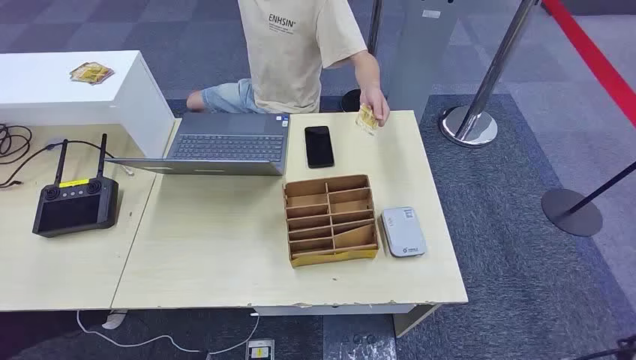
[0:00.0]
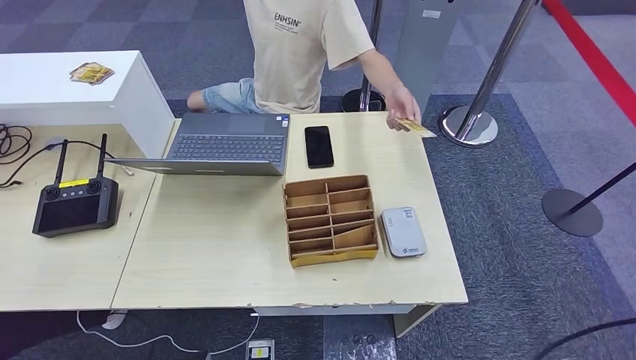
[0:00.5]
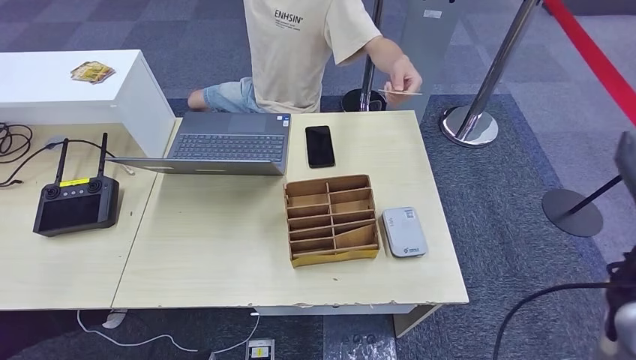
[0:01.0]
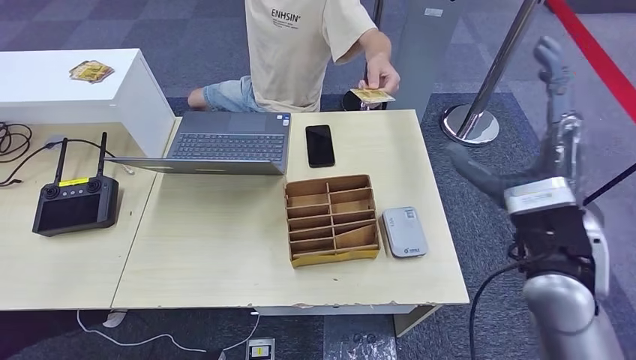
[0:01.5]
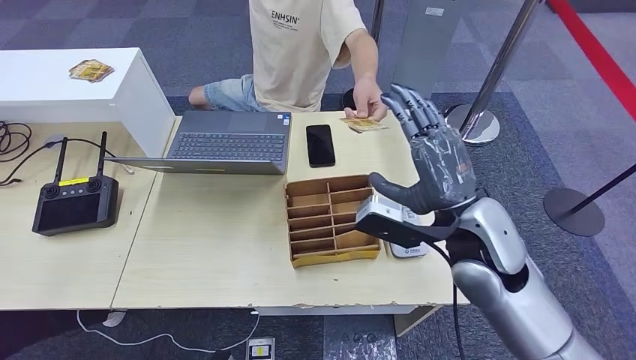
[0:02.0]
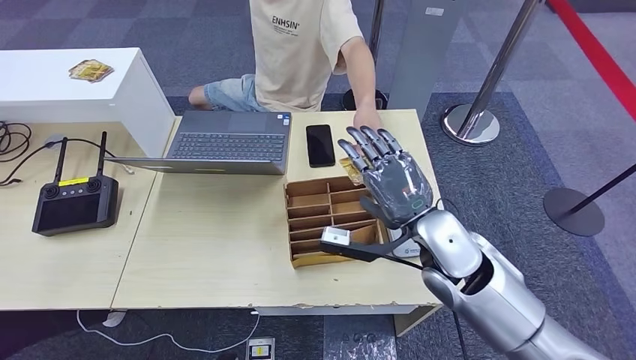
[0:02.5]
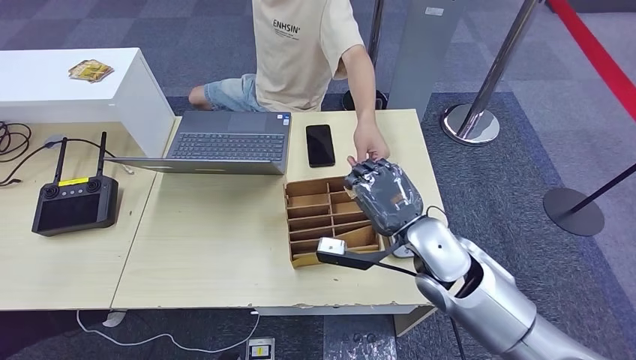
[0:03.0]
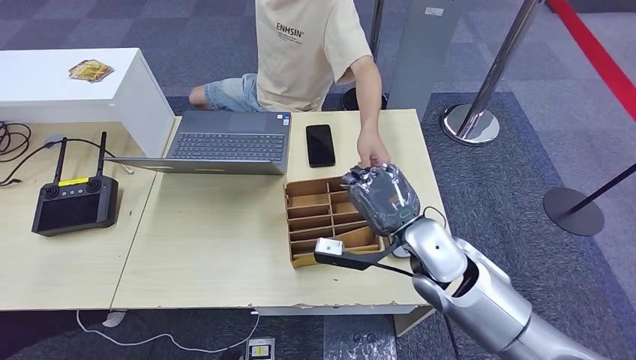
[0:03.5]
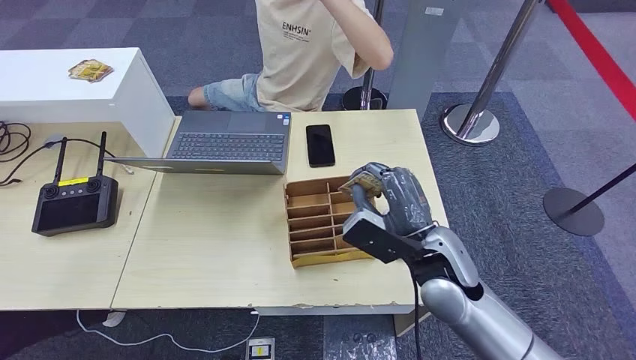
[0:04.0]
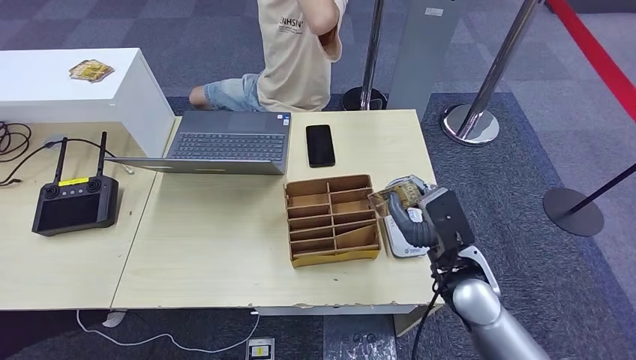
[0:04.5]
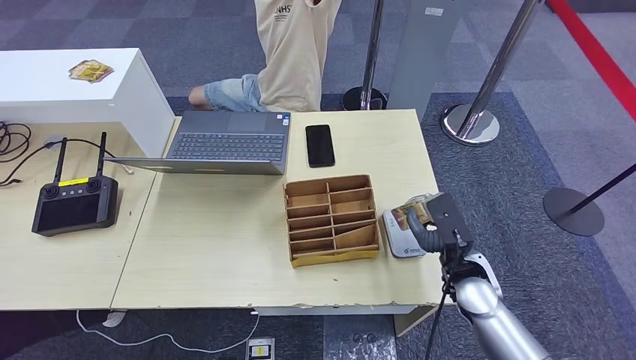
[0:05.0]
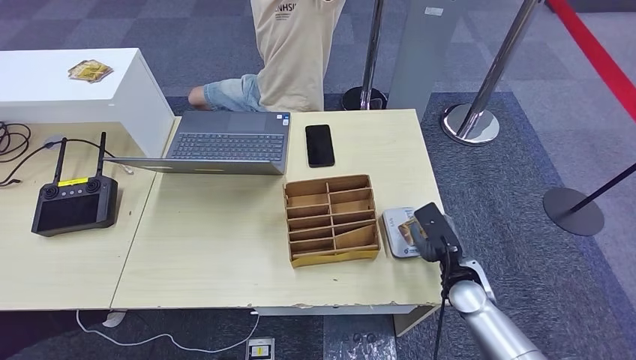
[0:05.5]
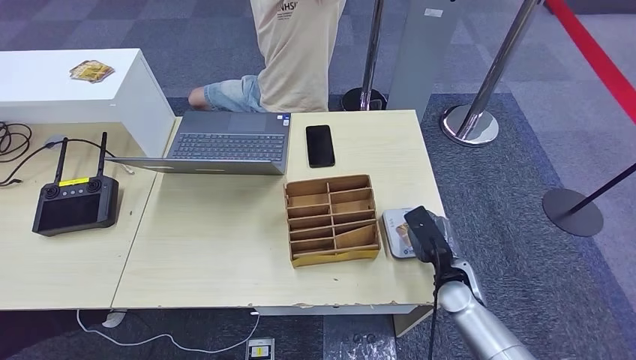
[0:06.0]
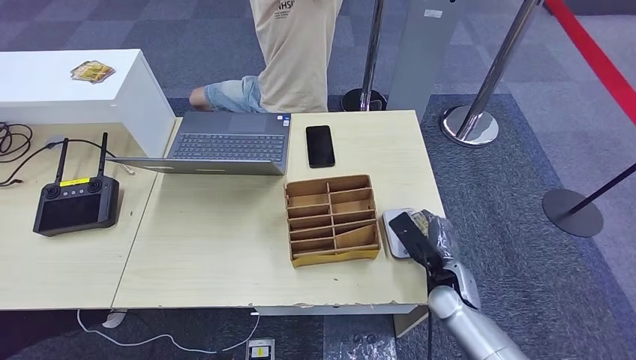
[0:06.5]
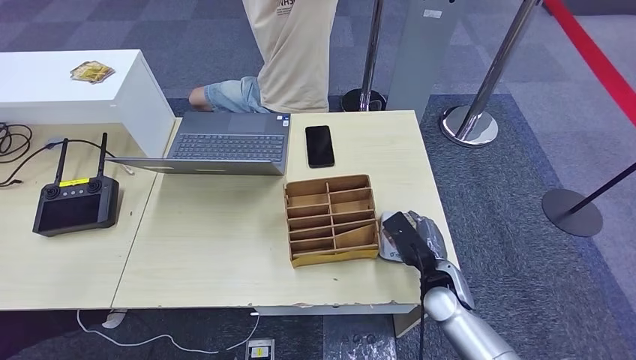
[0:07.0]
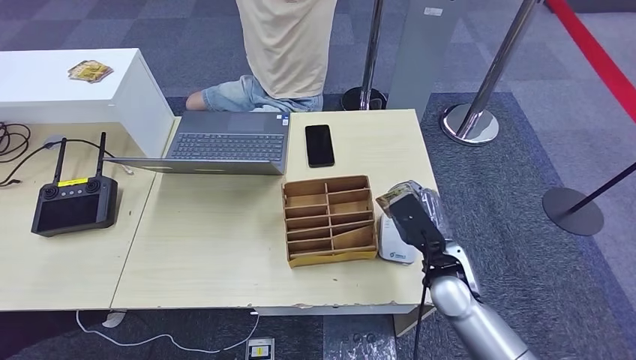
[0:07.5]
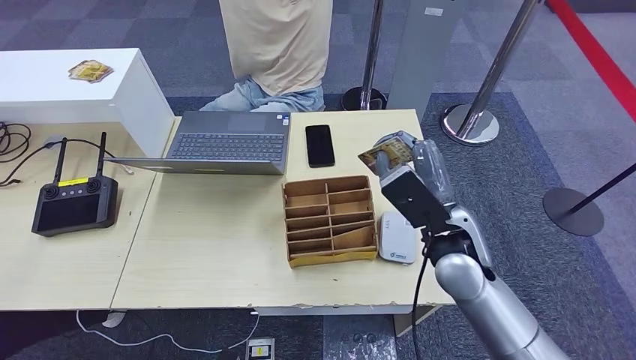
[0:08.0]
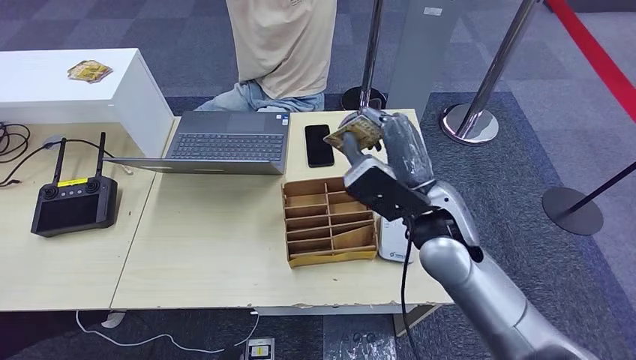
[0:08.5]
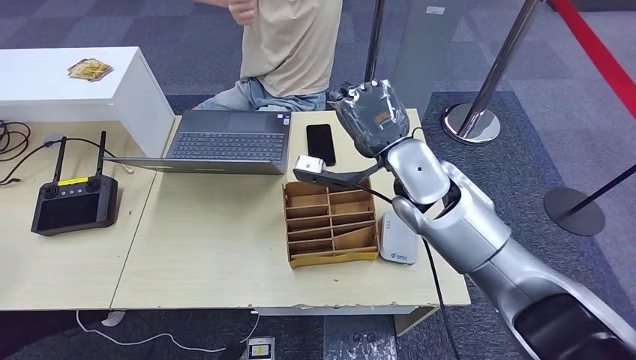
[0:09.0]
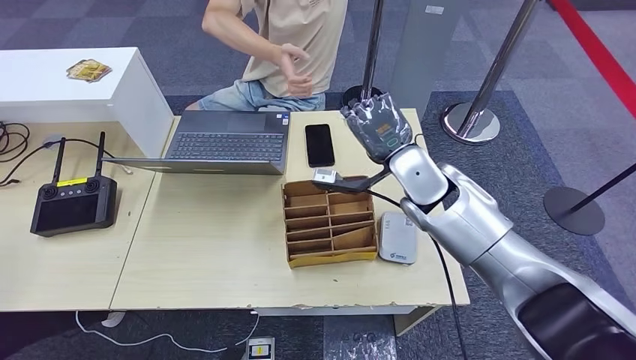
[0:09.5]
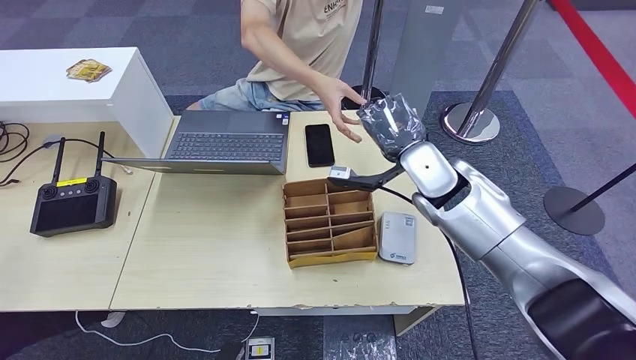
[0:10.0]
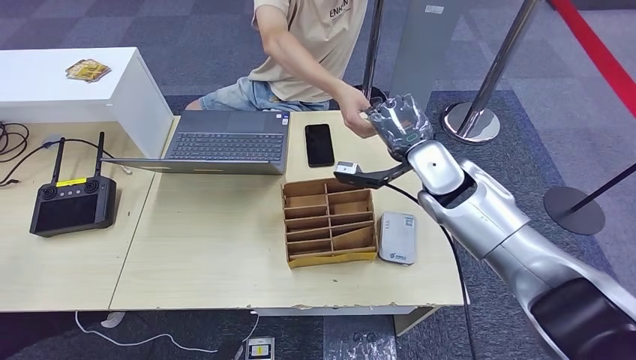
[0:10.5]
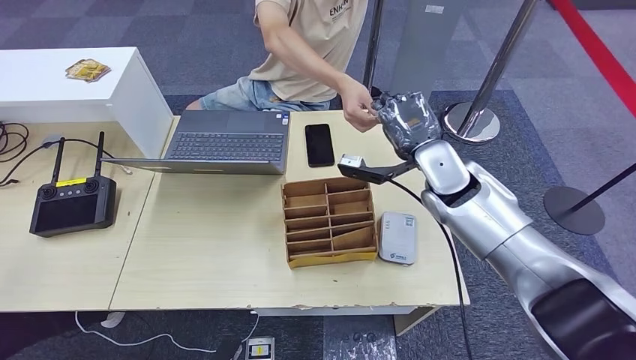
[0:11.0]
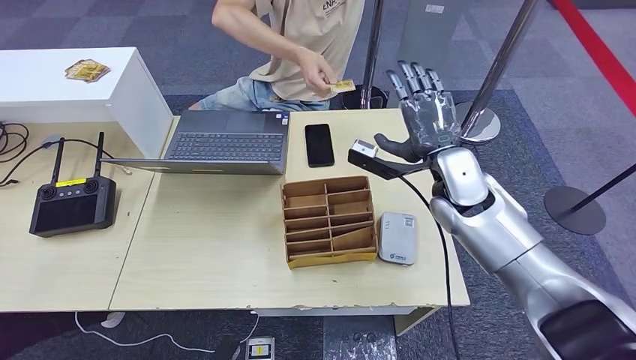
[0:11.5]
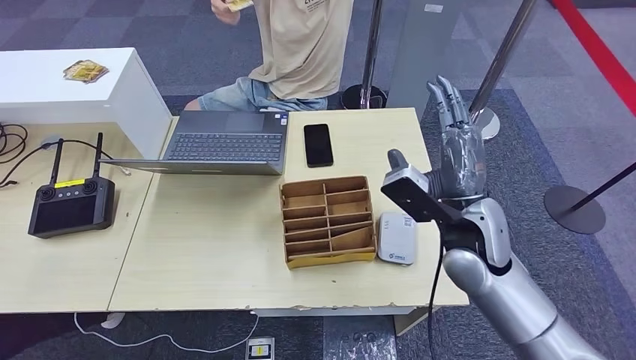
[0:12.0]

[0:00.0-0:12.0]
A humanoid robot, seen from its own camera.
Step, 0:00.0 to 0:04.0: Take the ID card from the person's hand.
Step, 0:04.5 to 0:05.5: Place the ID card on the card reader.
Step, 0:06.0 to 0:11.5: Hand the ID card to the person.
0:02.0 to 0:04.0: The right hand heads downward, covering about 10 cm.
0:04.0 to 0:06.0: The right hand shifts some 15 cm downward and to the right.
0:06.0 to 0:08.0: The right hand travels upward by roughly 20 cm.
0:10.0 to 0:12.0: The right hand is displaced backward by roughly 10 cm.

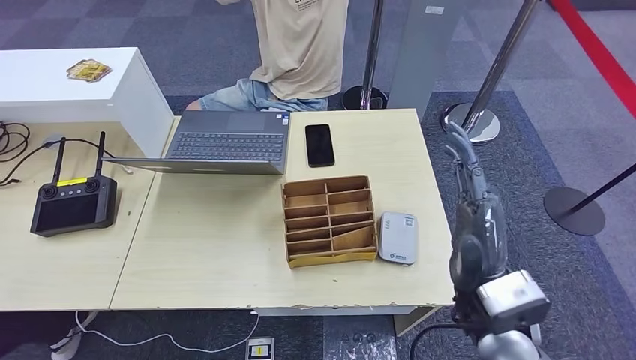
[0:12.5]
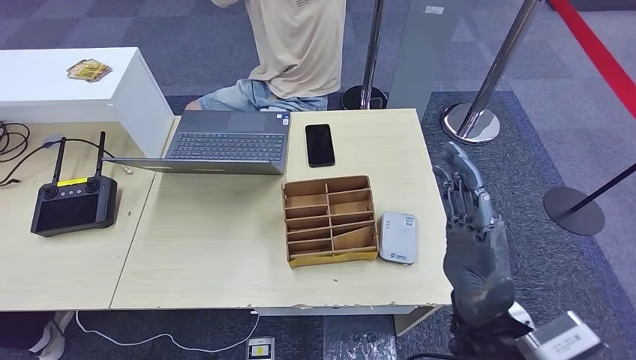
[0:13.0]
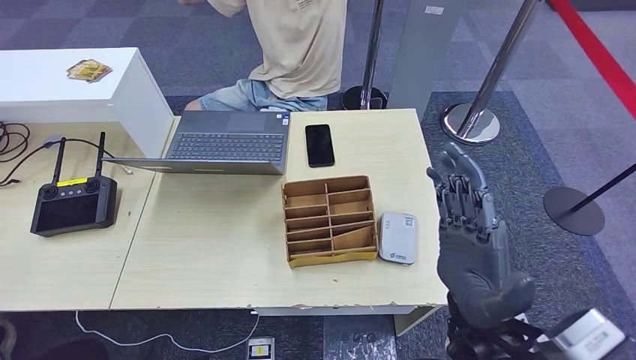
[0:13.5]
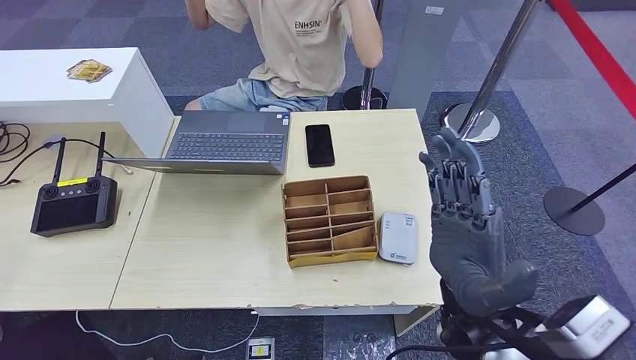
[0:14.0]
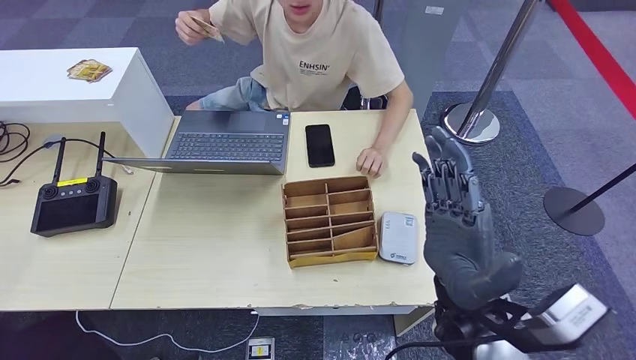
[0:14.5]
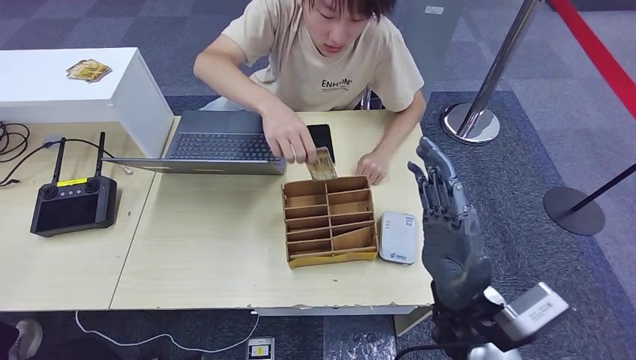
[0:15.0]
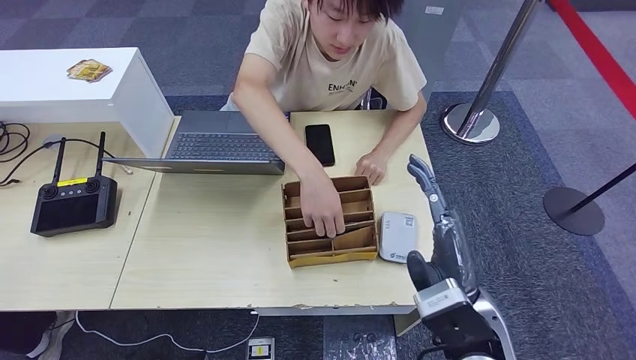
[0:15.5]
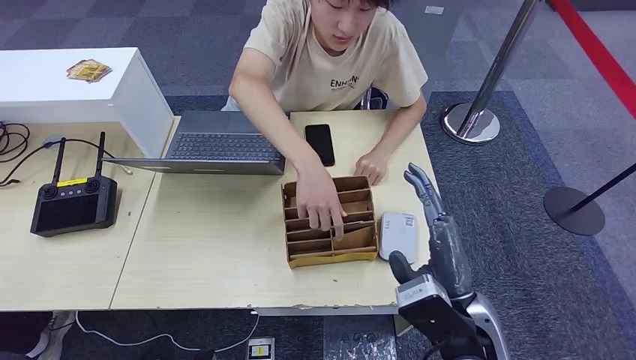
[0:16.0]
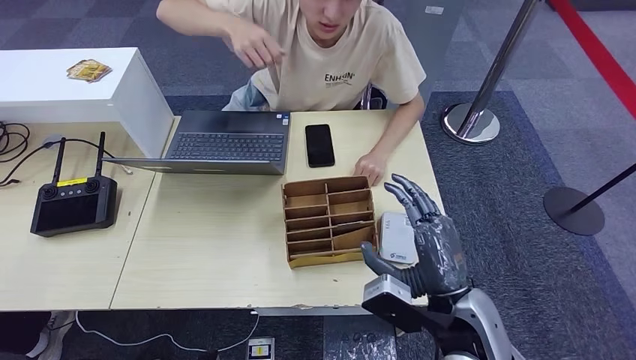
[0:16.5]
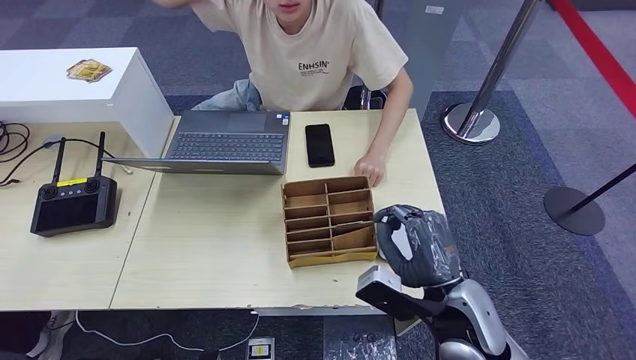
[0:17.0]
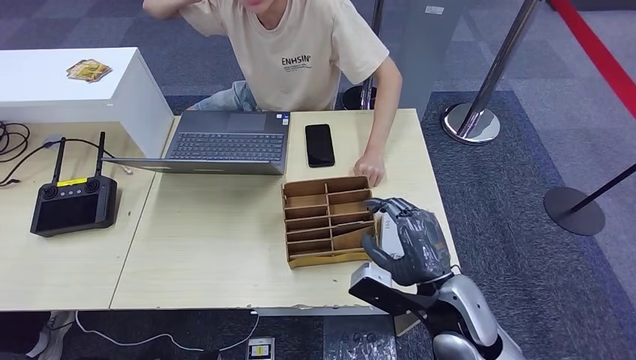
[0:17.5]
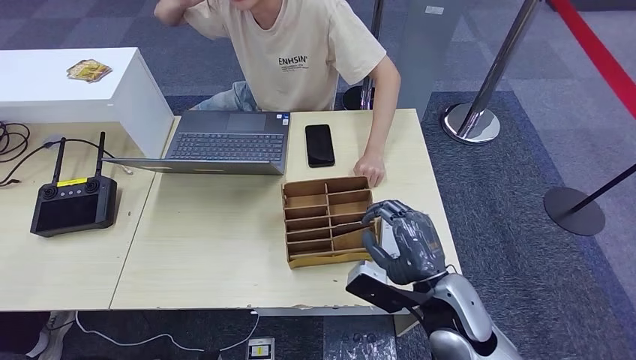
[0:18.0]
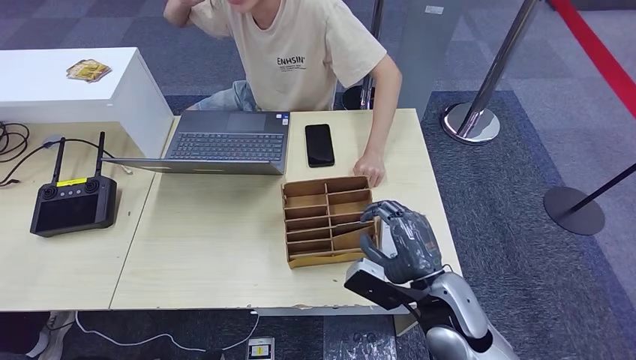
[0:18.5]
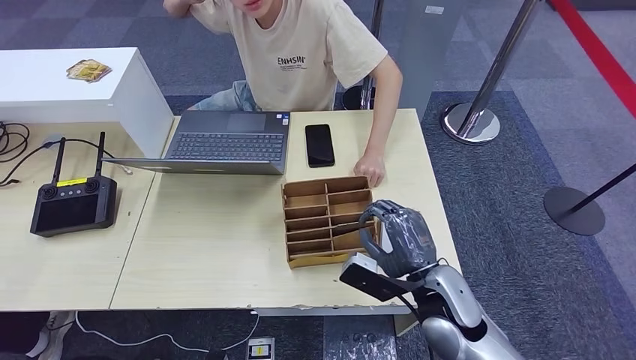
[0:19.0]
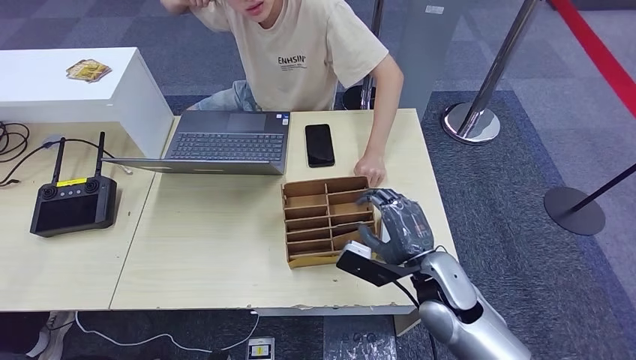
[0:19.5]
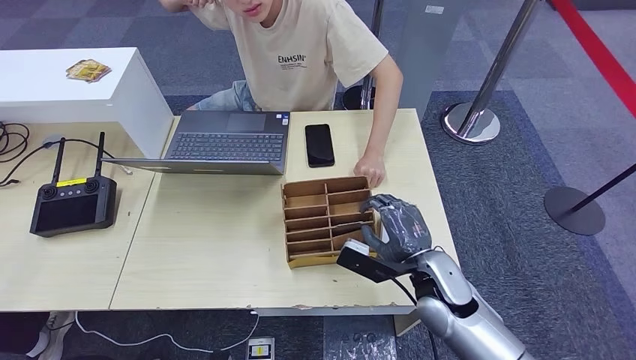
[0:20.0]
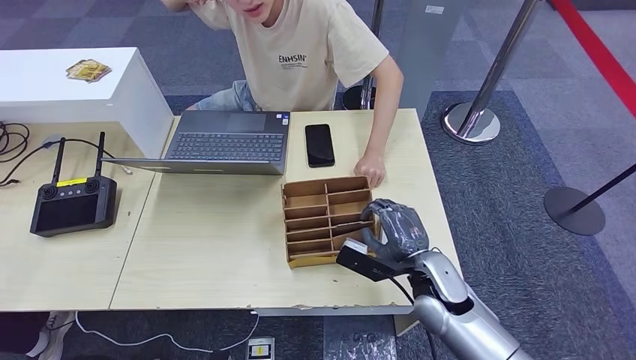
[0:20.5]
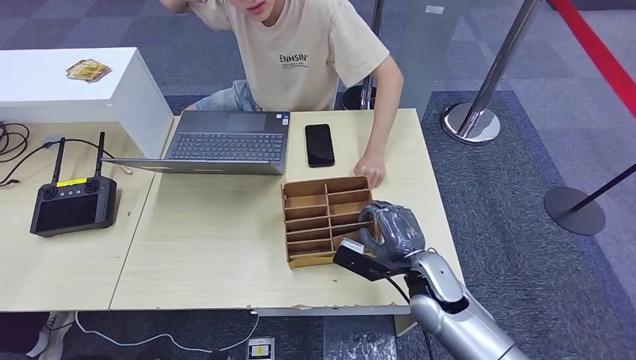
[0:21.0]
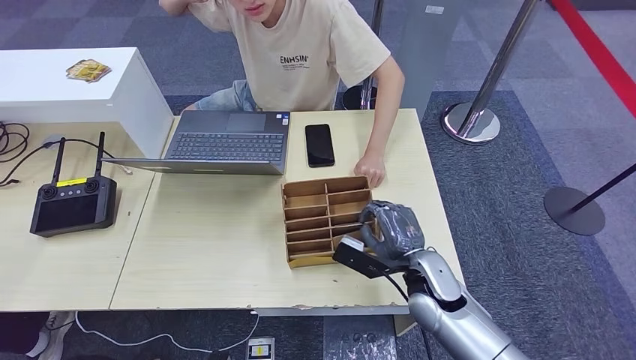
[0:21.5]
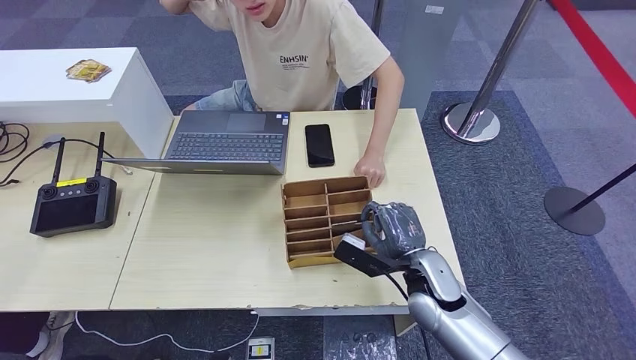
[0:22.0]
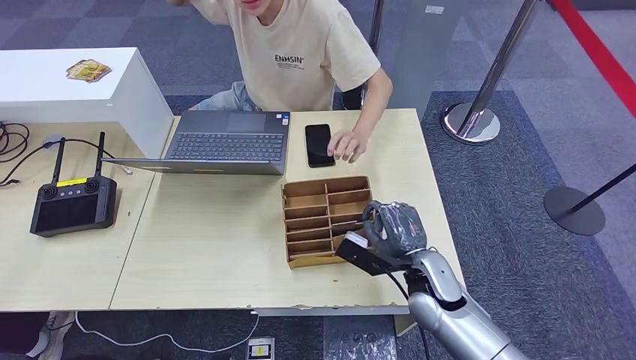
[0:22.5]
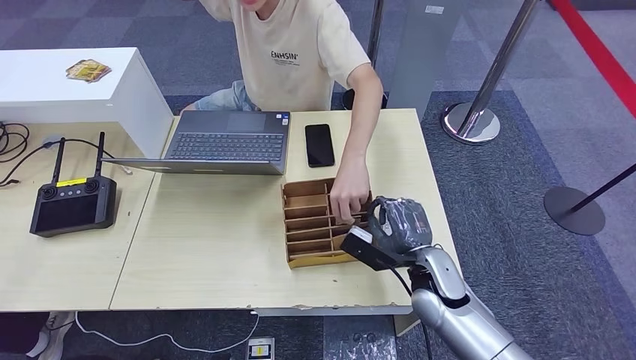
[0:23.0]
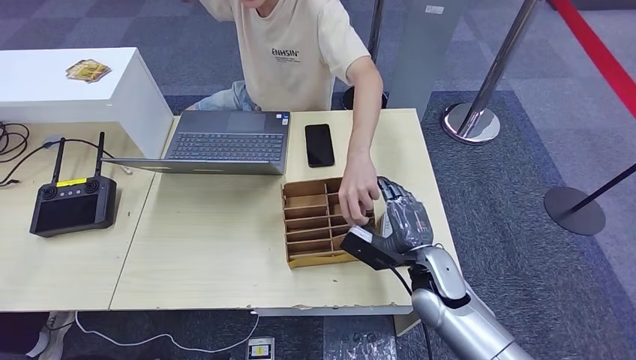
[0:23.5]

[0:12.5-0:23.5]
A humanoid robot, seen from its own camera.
0:16.0 to 0:18.0: The right hand moves roughly 5 cm.
0:18.0 to 0:20.0: The right hand heads forward, covering approximately 5 cm.
0:20.0 to 0:23.5: The hands move only a little.
